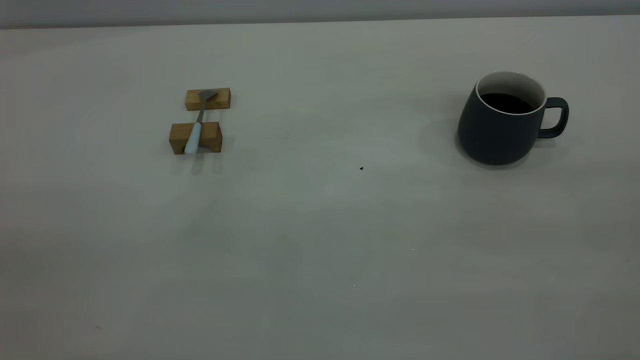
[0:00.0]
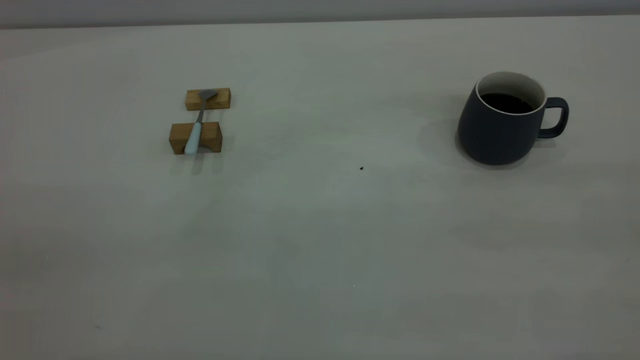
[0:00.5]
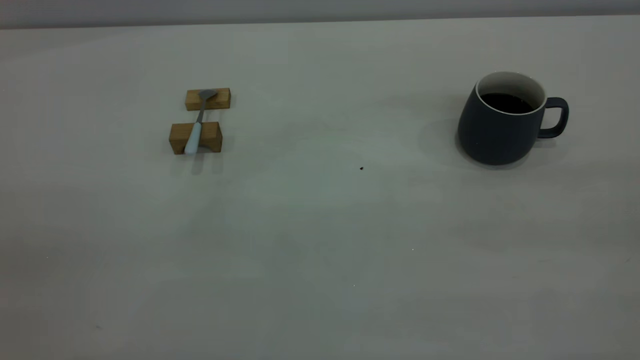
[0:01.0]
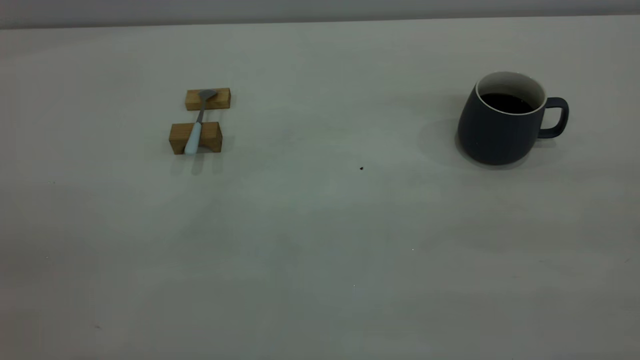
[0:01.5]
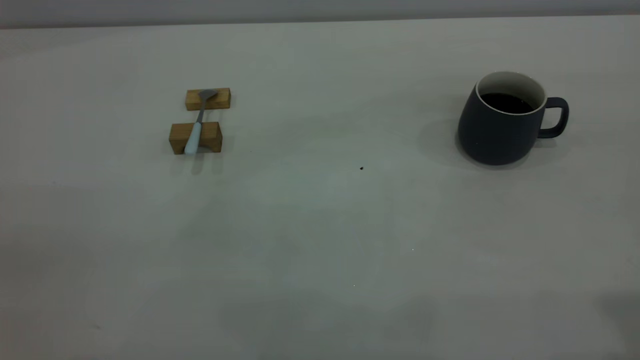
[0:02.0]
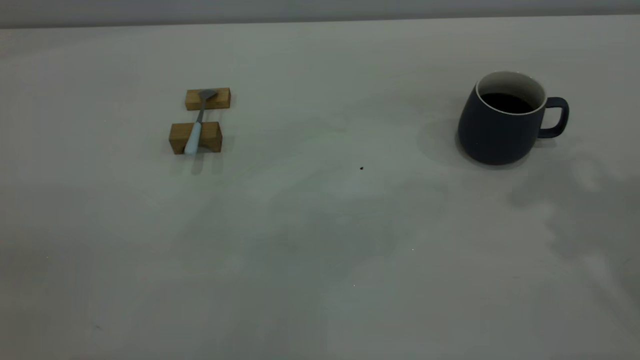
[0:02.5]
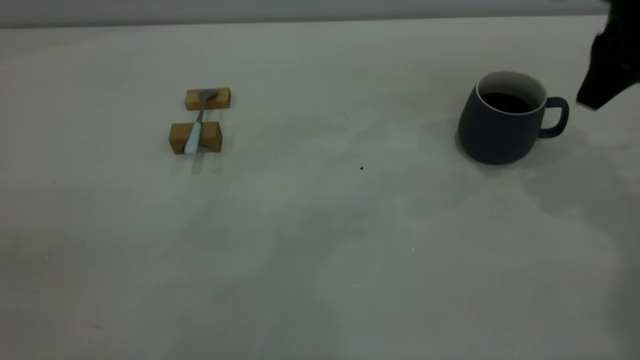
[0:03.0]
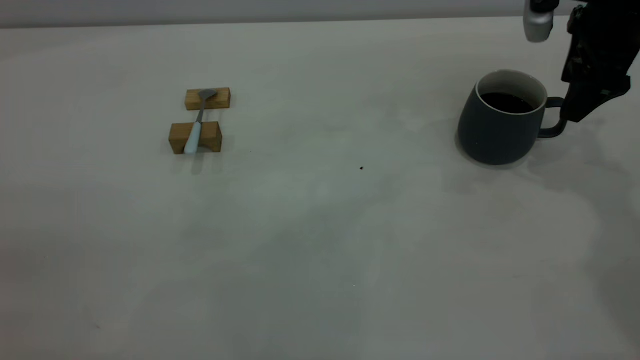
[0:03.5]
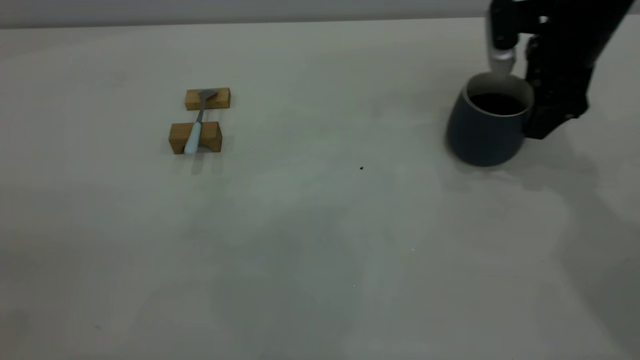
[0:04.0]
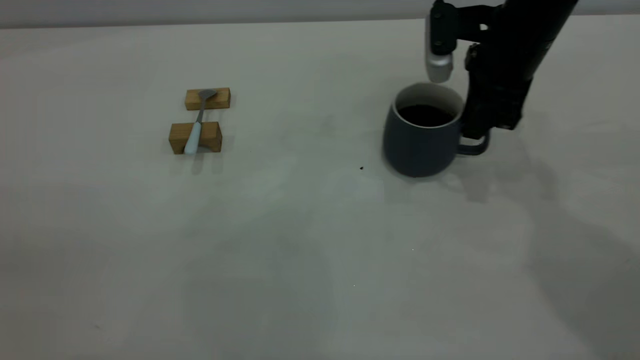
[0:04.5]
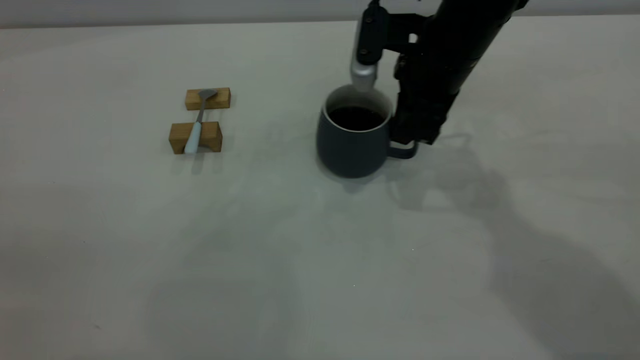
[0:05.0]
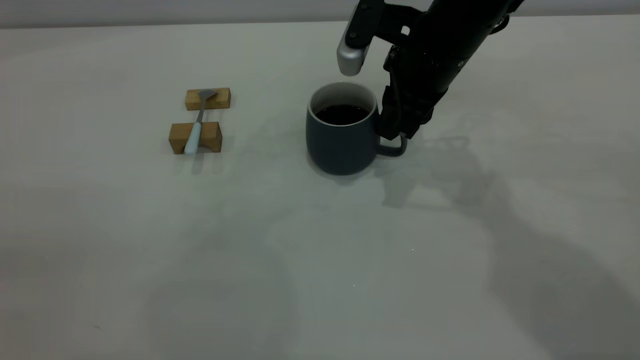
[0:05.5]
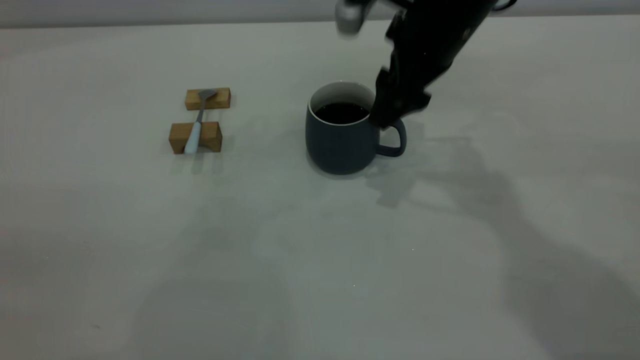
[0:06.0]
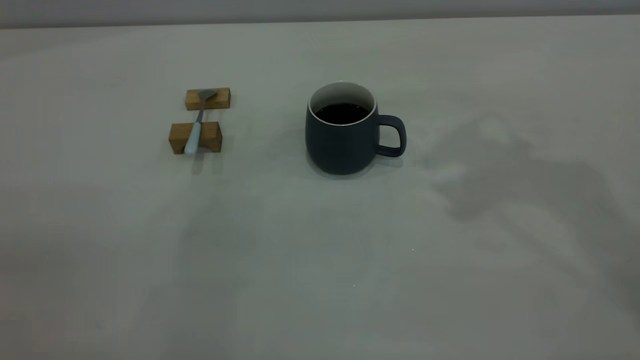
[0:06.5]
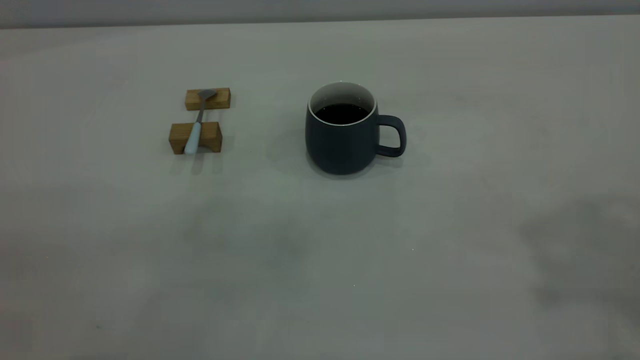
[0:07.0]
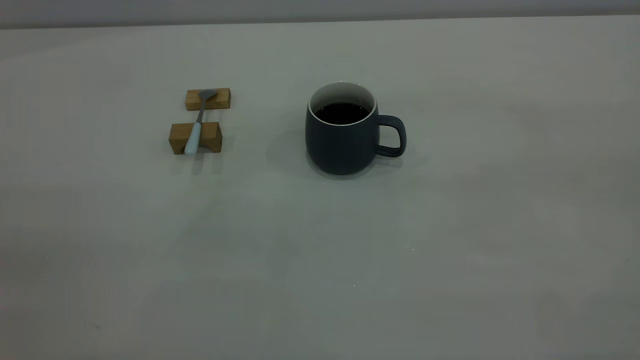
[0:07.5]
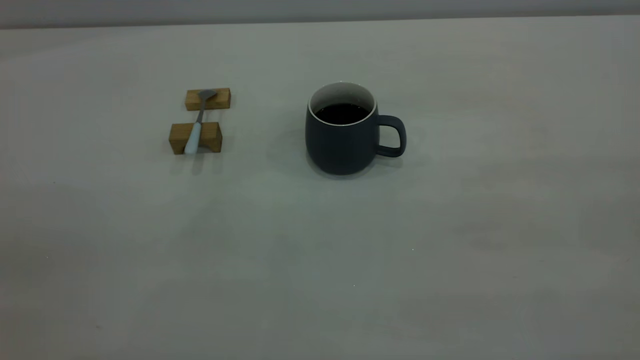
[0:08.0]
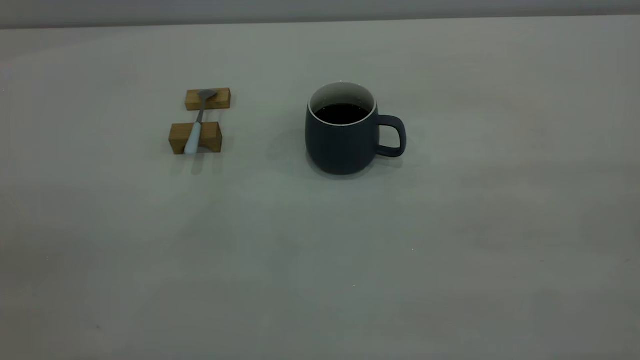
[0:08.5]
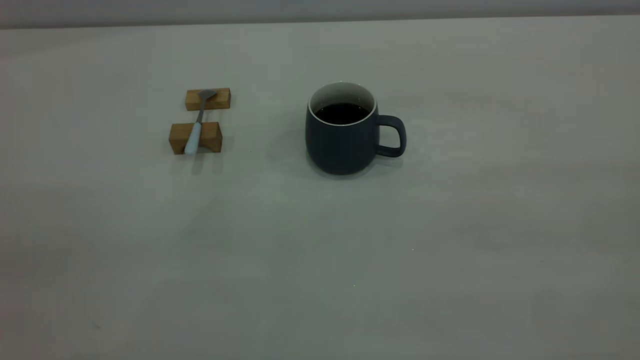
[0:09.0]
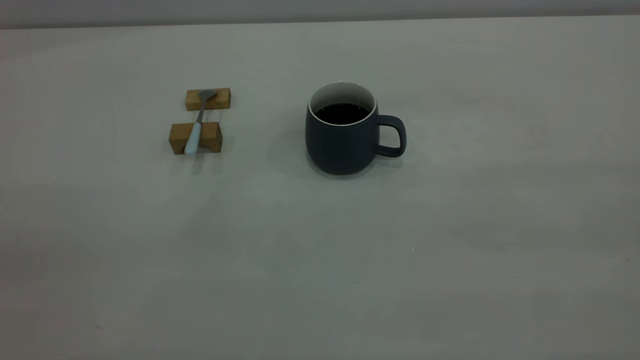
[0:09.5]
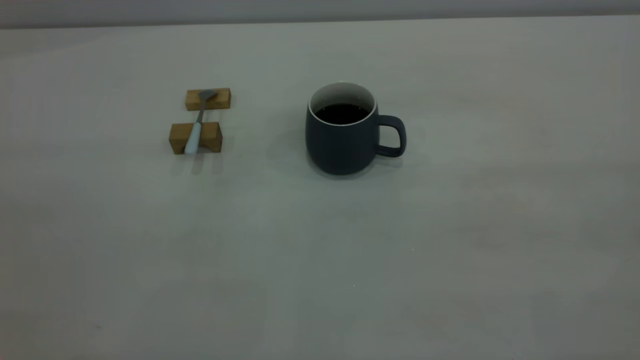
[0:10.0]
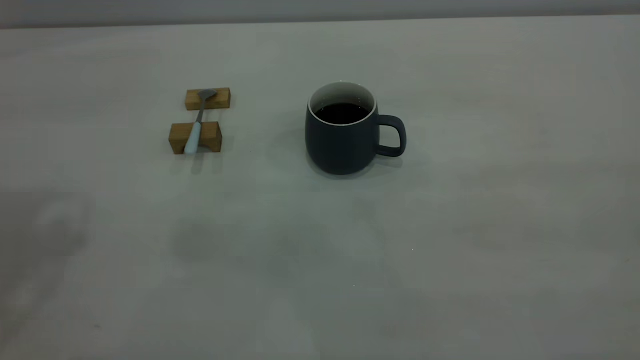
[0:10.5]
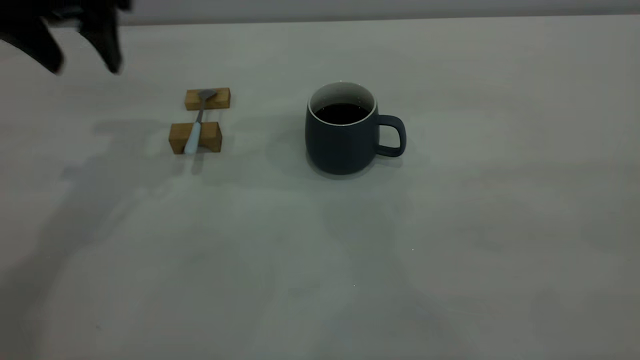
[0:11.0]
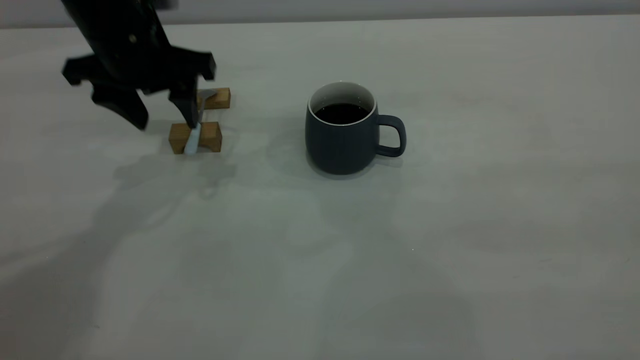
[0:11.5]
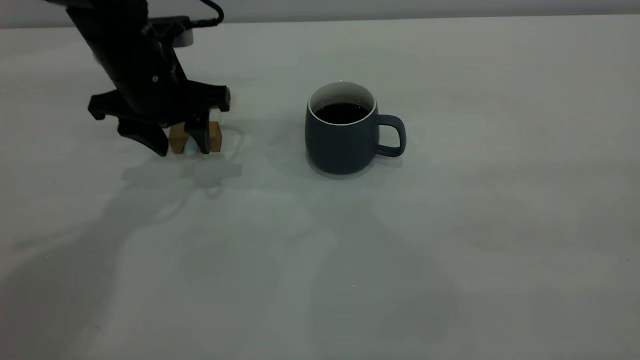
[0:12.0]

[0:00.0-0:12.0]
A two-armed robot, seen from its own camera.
Step, 0:00.0 to 0:06.0: Move the cup with coffee to the center of view.
0:02.0 to 0:04.0: The right gripper is displaced forward and downward by roughly 40 cm.
0:04.0 to 0:06.0: The right gripper moves to the left, approximately 15 cm, and closes and opens again.
0:06.0 to 0:08.0: The right gripper moves backward, to the right and upward, about 50 cm.
0:10.0 to 0:12.0: The left gripper shifts about 40 cm forward and downward.

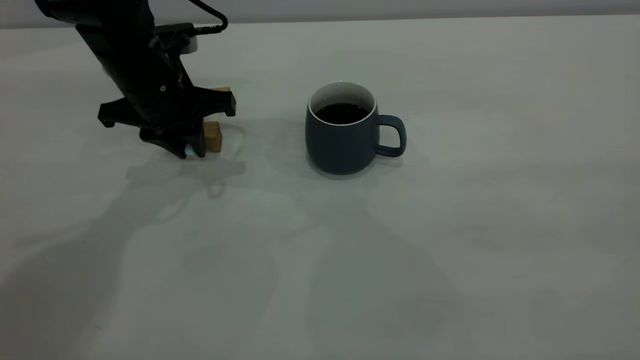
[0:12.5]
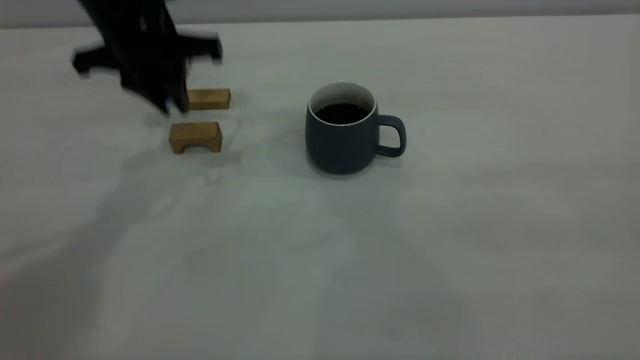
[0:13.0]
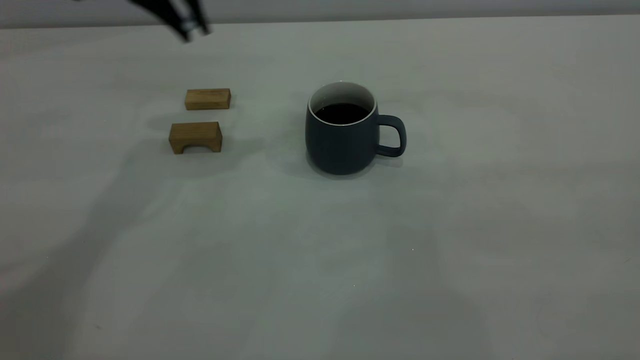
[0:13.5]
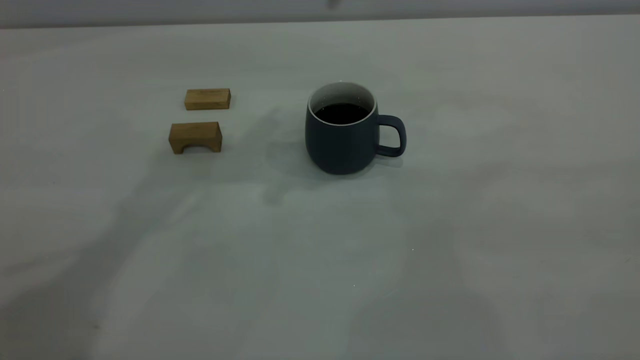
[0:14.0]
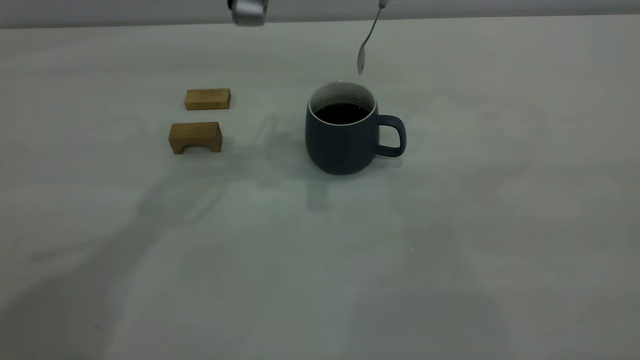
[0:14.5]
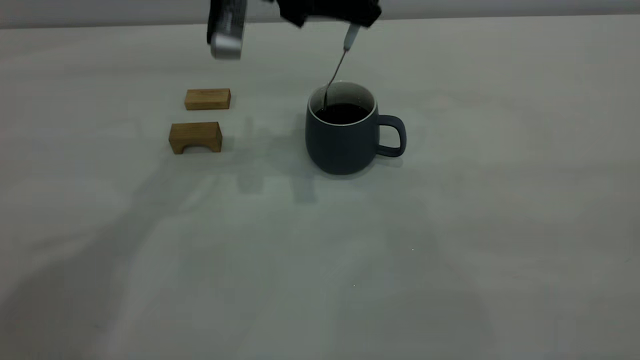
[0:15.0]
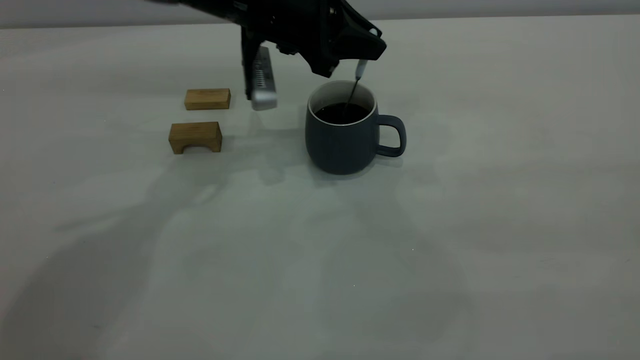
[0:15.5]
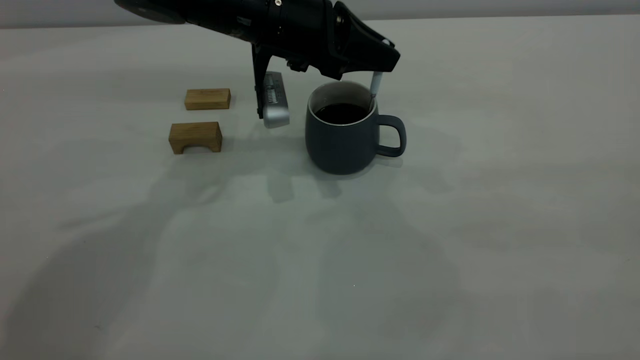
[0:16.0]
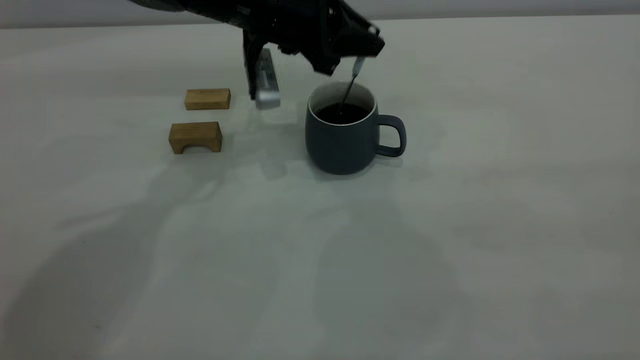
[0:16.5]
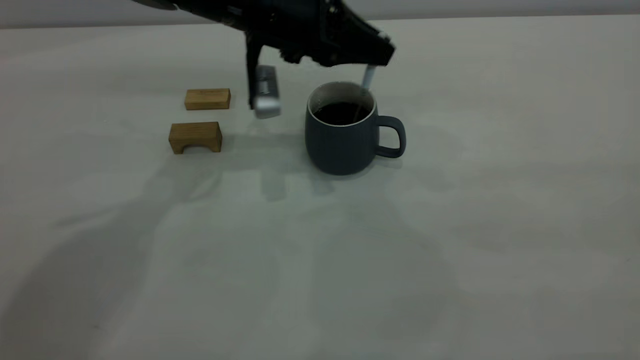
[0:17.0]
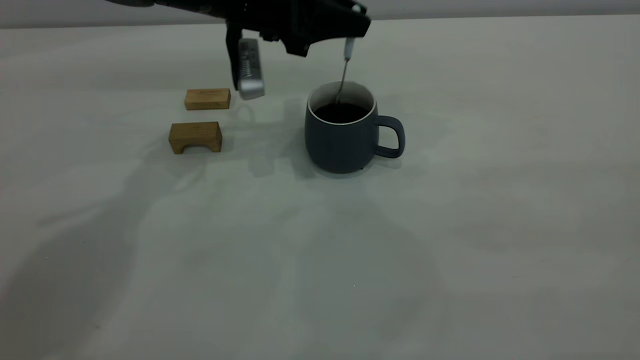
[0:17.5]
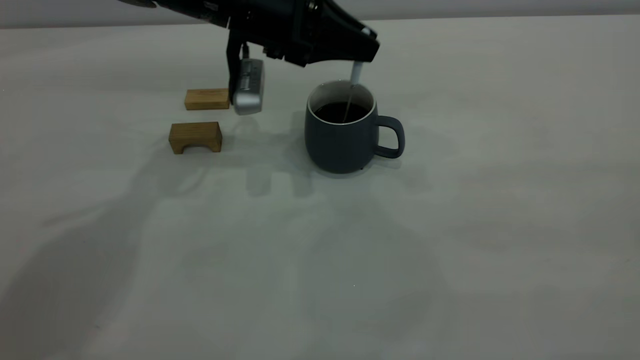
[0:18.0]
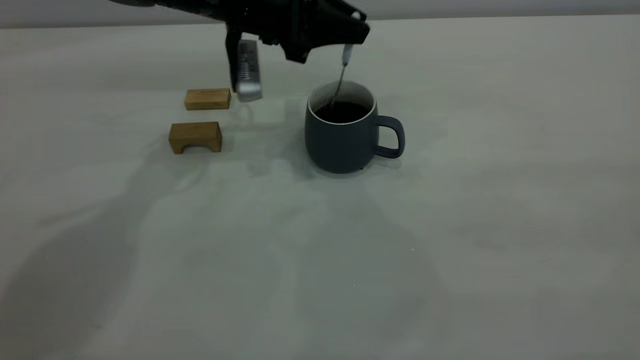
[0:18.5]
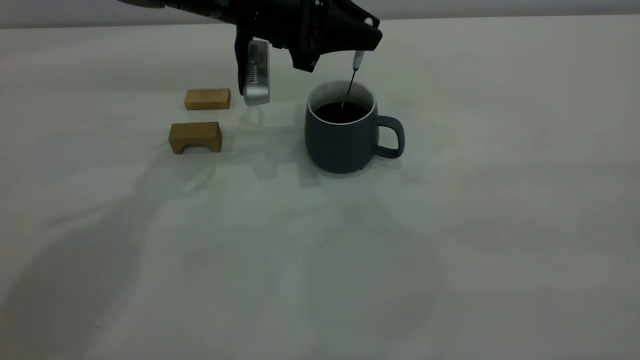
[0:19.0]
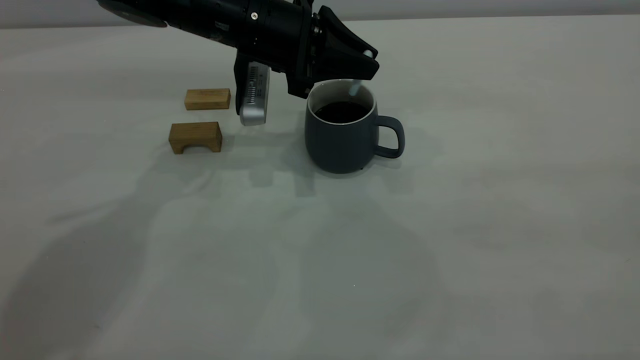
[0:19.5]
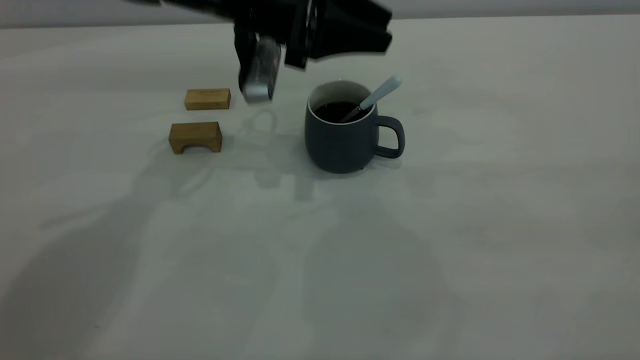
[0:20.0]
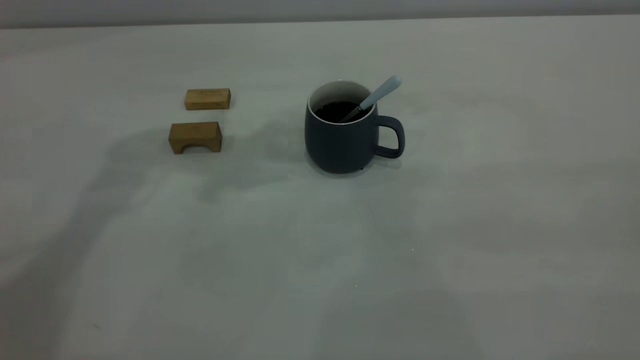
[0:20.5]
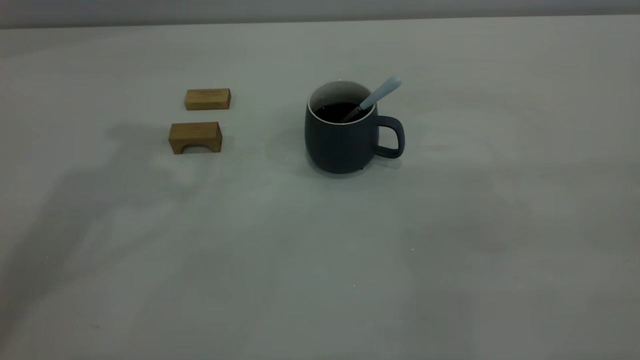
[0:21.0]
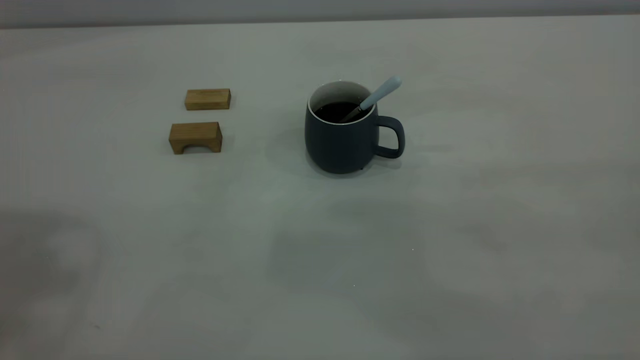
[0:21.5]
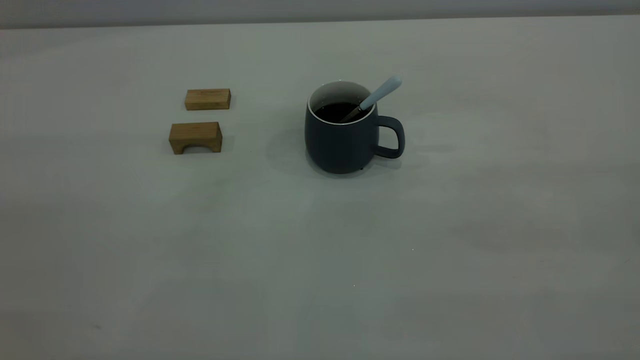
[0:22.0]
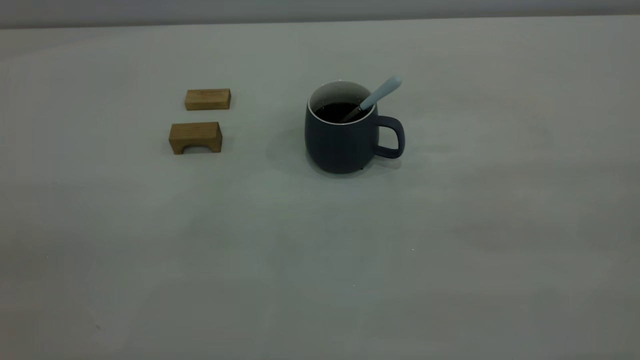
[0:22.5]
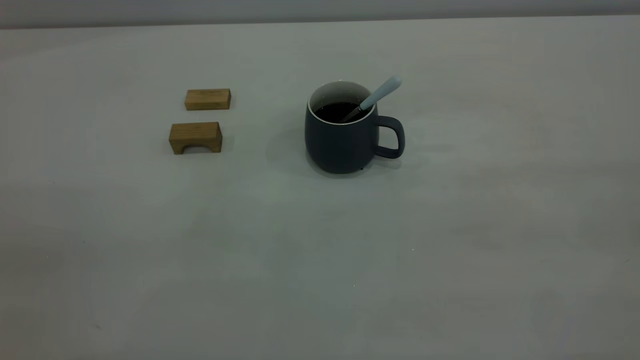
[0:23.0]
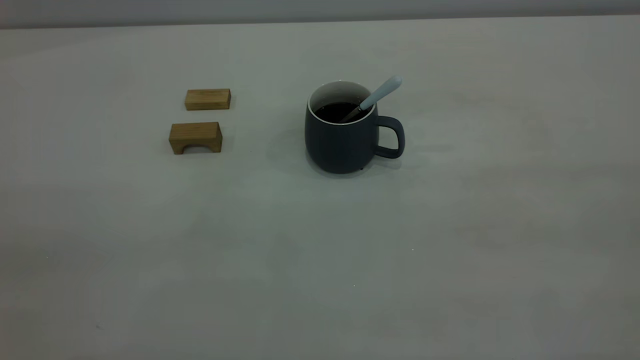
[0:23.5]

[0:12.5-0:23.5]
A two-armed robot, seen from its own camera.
Step, 0:13.0 to 0:20.0: Stir the coffee in the cup.
0:12.5 to 0:14.5: The left gripper is displaced upward and to the right by about 20 cm.
0:14.5 to 0:16.0: The left gripper goes roughly 10 cm downward.
0:16.0 to 0:18.0: The grippers move only a little.
0:18.0 to 0:20.0: The left gripper opens its fingers.
0:20.0 to 0:21.5: The left gripper moves upward, backward and to the left, some 40 cm.
